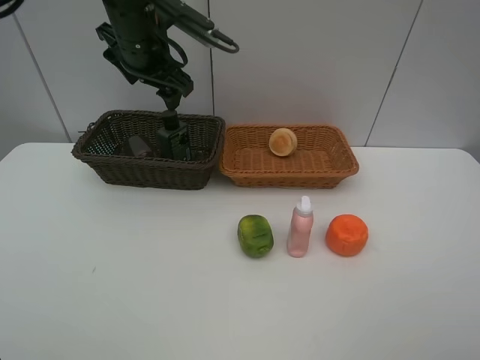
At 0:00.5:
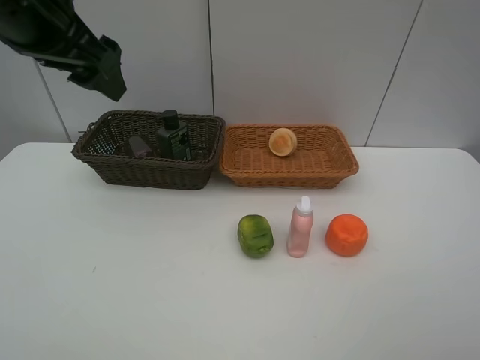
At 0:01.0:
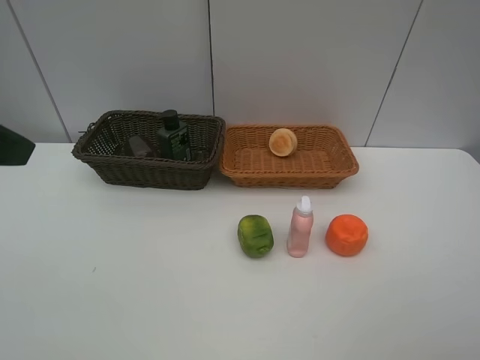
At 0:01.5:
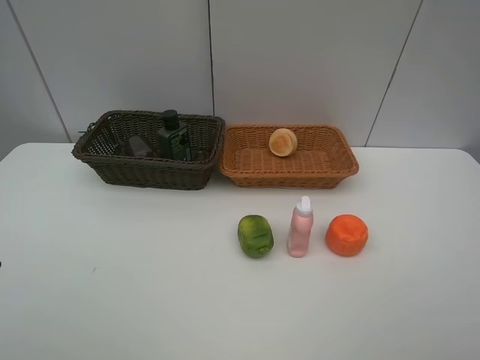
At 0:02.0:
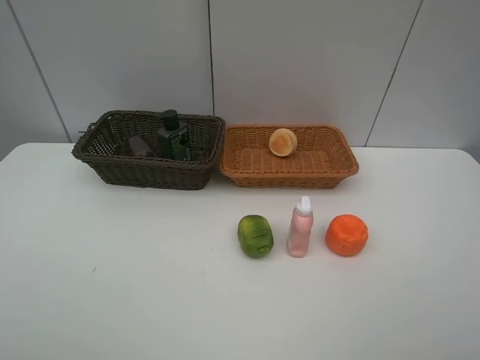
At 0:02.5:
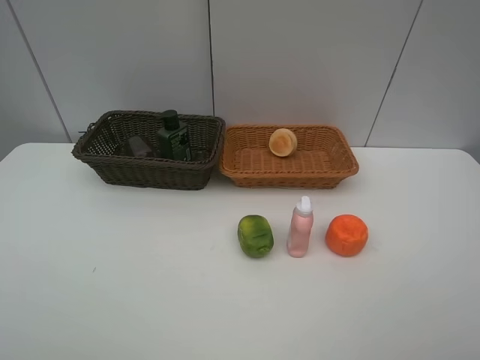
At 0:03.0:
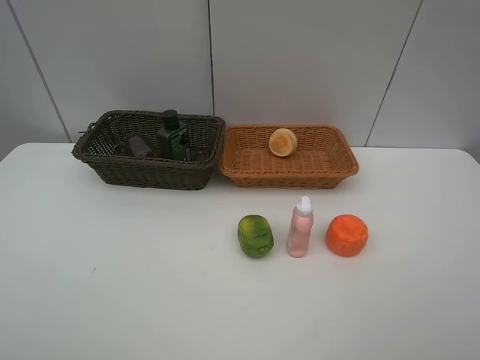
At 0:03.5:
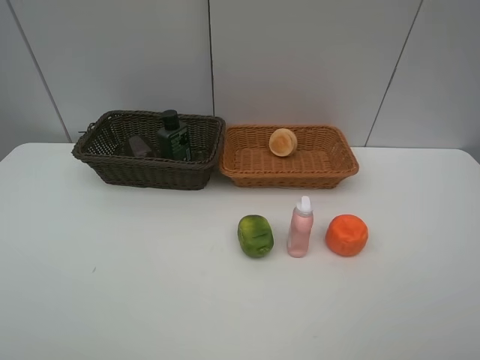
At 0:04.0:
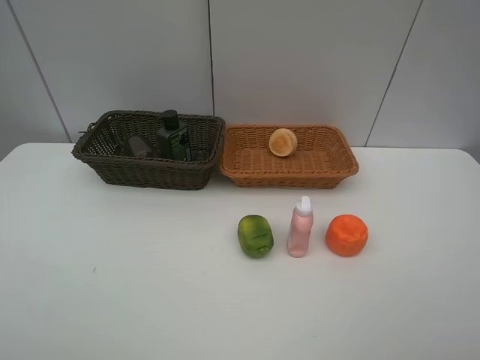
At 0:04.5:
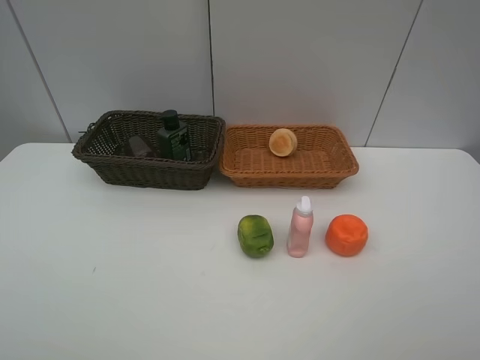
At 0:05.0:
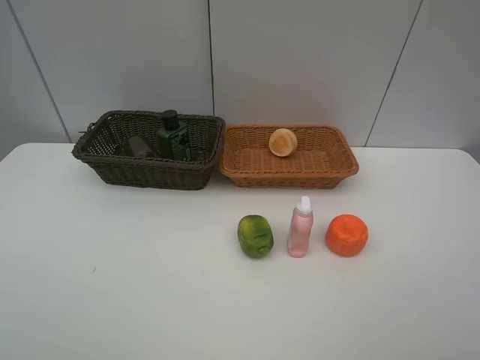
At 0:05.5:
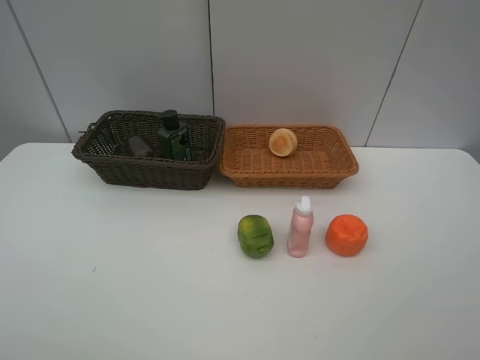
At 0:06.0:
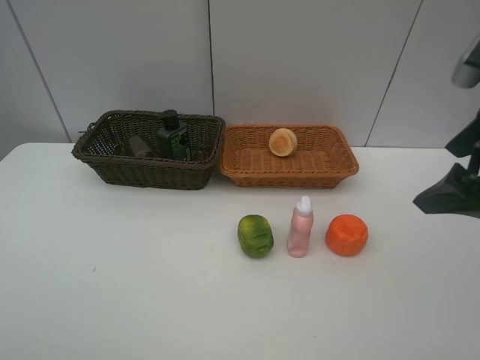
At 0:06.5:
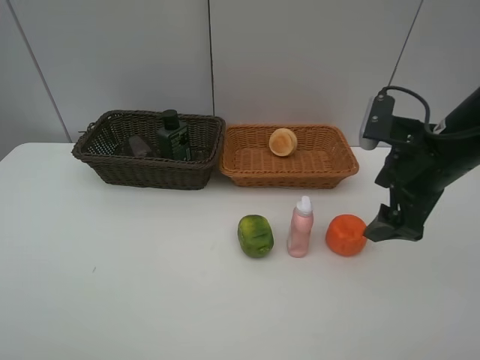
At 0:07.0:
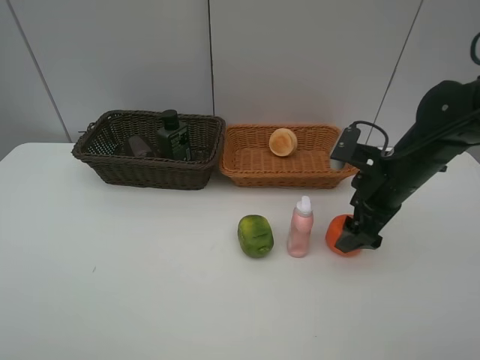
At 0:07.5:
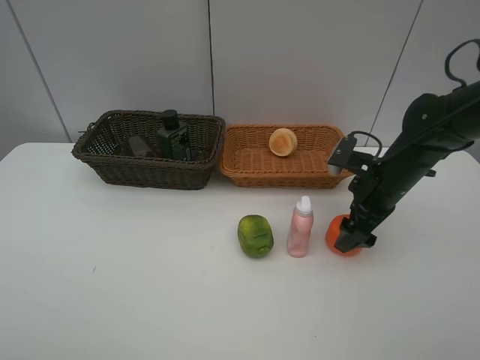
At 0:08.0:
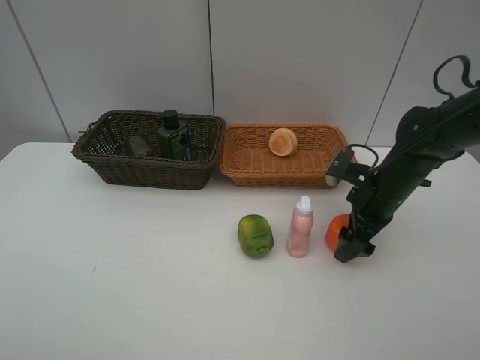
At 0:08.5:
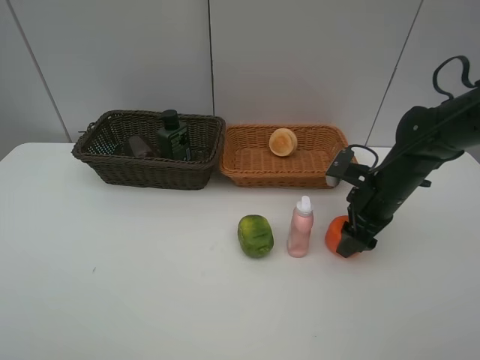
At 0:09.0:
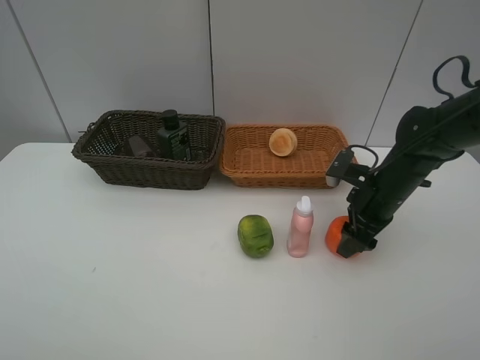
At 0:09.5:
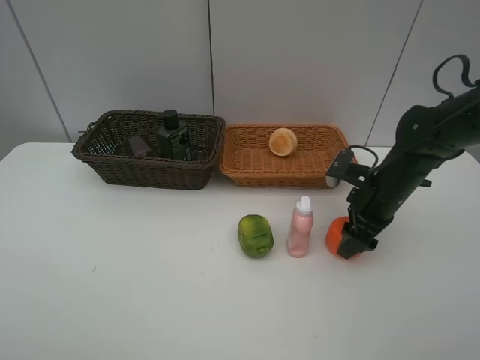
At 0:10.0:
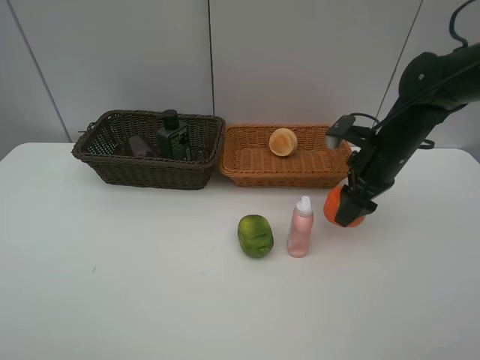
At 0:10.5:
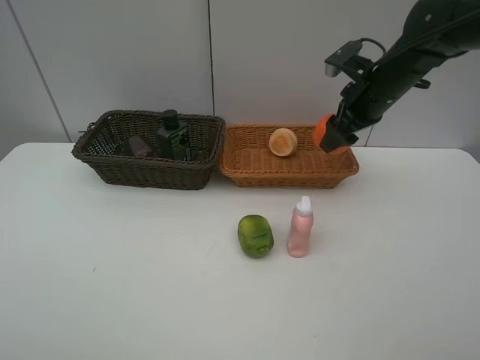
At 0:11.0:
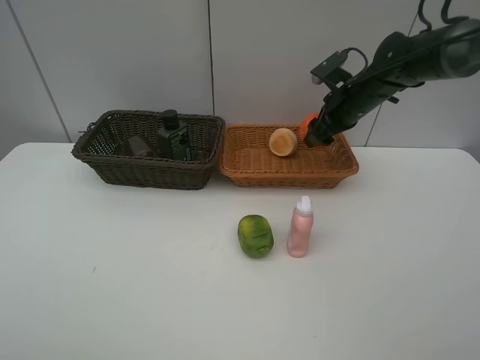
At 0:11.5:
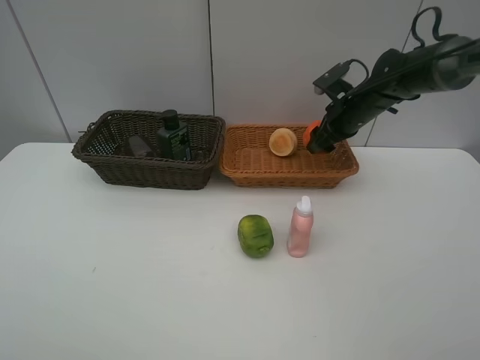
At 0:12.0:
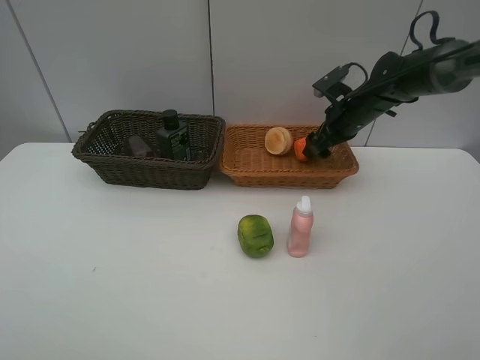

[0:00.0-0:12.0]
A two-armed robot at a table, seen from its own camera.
Task of the whole recording: place multiple objects separately in different baskets.
0:00.0 to 0:02.0: The left gripper heads backward and to the left, covering some 40 cm.
0:04.0 to 0:06.0: The right gripper goes some 20 cm forward.
0:06.0 to 0:08.0: The right gripper is displaced downward and forward by some 20 cm.
0:08.0 to 0:10.0: The right gripper moves upward, some 5 cm, and closes up.
0:10.0 to 0:12.0: The right gripper shifts some 10 cm forward, and opens its fingers.

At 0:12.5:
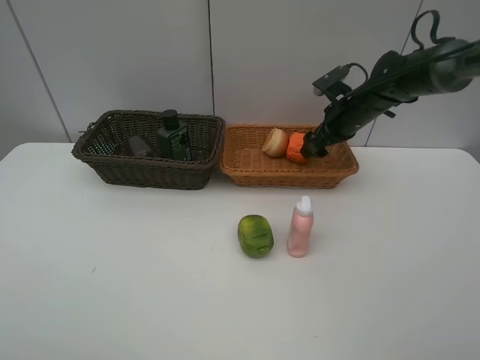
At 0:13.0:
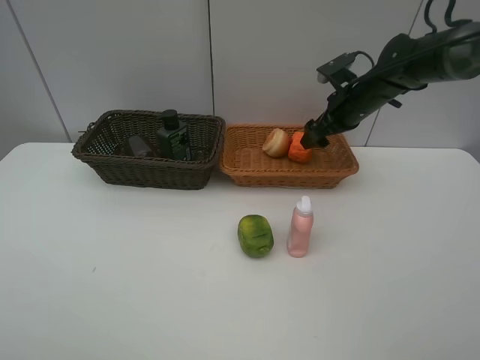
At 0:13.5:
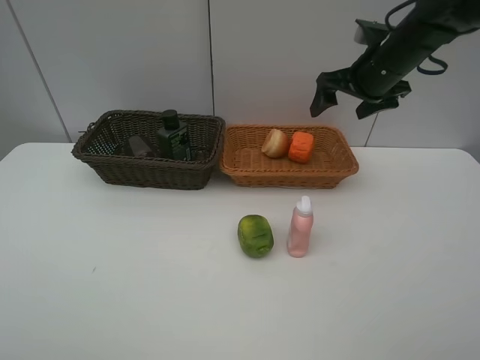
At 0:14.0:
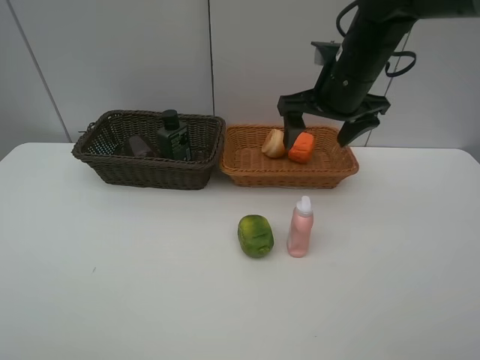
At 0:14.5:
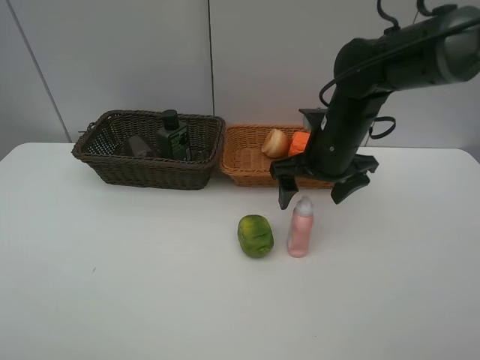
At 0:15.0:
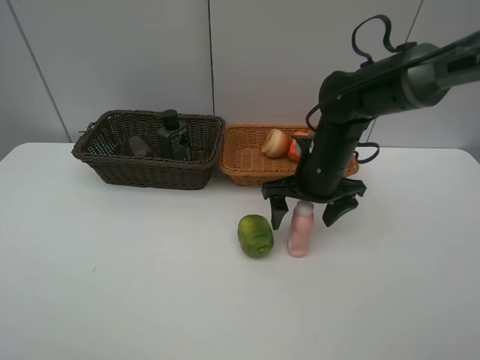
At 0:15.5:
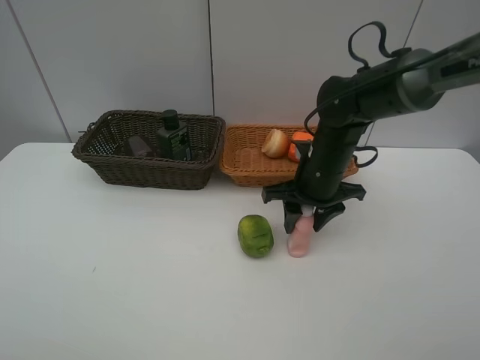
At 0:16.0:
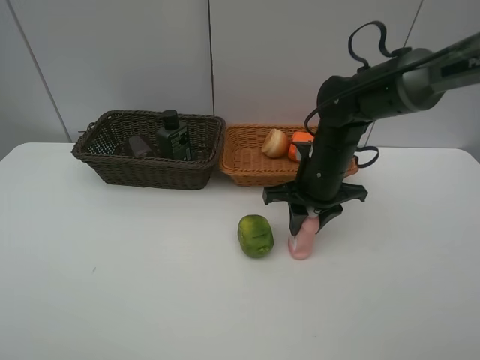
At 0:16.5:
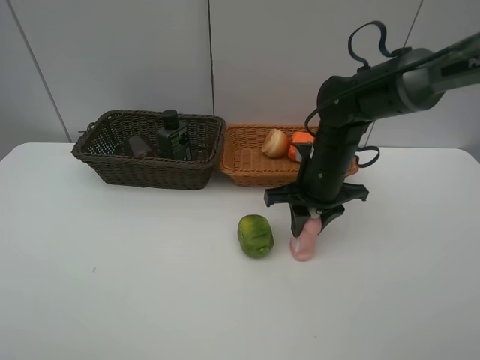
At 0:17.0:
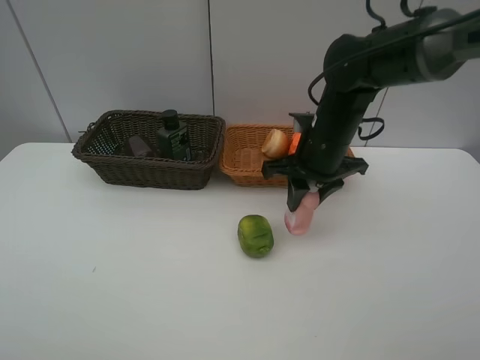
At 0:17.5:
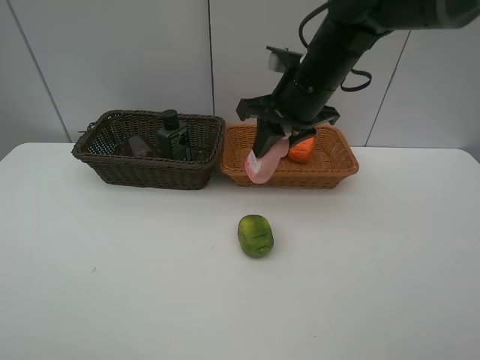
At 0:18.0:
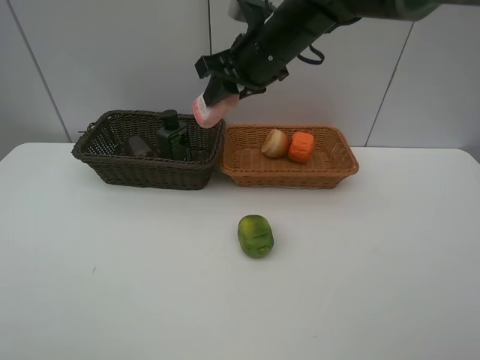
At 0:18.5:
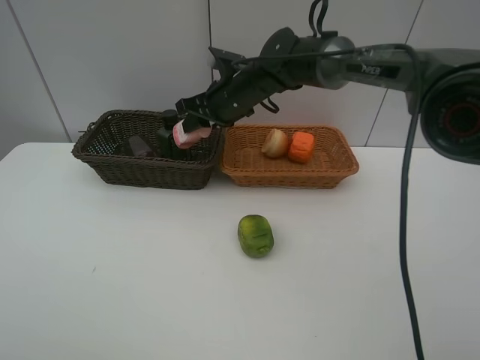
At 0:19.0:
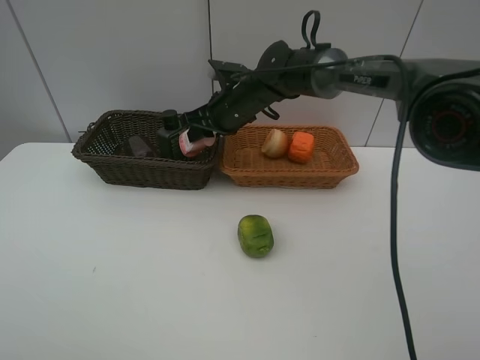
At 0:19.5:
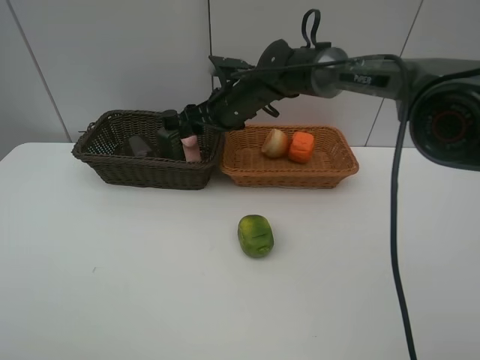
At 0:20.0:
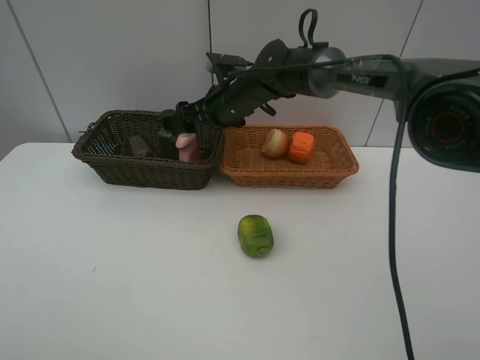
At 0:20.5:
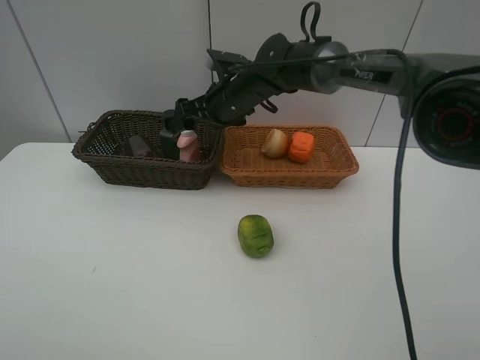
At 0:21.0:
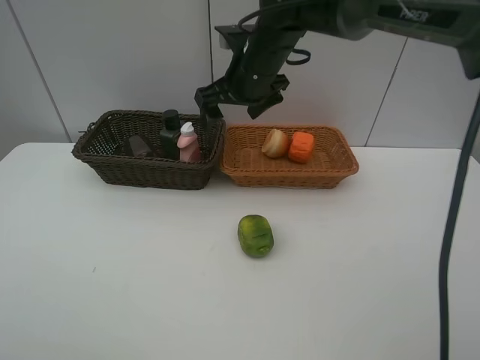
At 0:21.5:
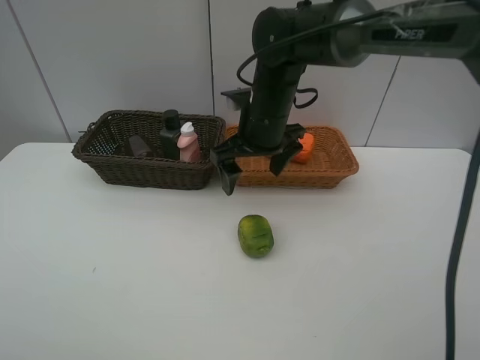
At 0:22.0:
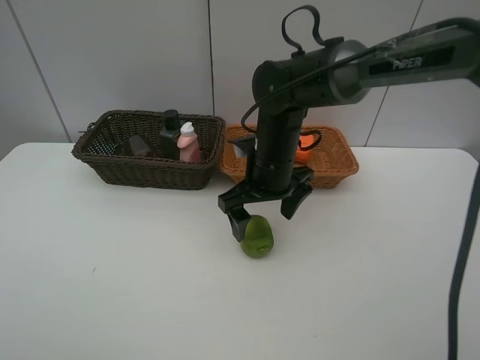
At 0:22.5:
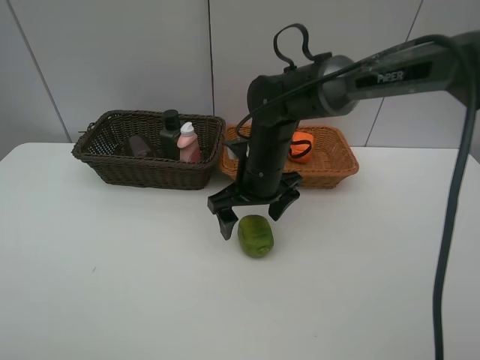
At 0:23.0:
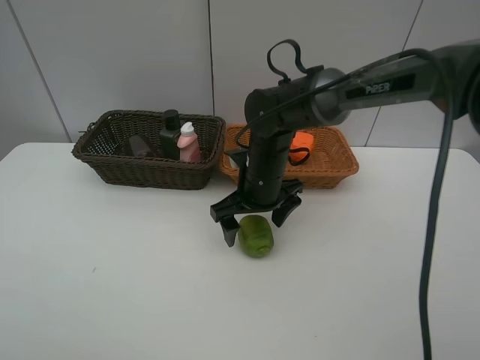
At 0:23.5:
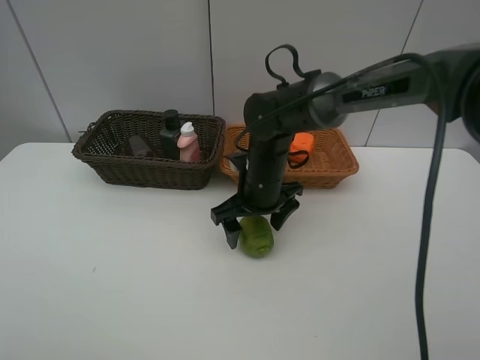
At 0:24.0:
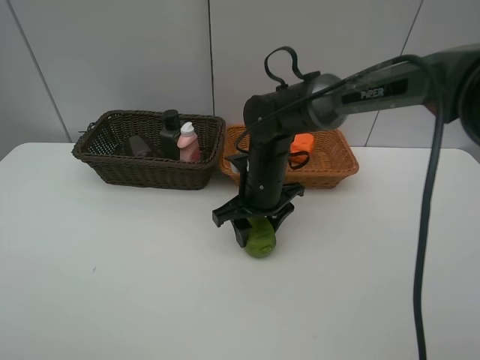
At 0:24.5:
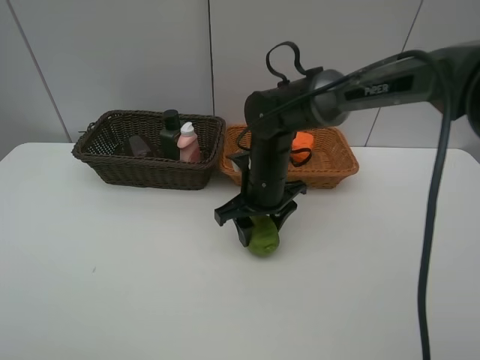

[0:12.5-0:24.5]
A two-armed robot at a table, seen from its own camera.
Task of the whole recording: place multiple objects separately in different baskets.
0:12.5 to 0:14.5: The right gripper moves backward and to the left, some 15 cm.
0:14.5 to 0:16.5: The right gripper closes its fingers.
0:16.5 to 0:18.5: The right gripper heads to the left and forward, covering roughly 15 cm.
0:18.5 to 0:20.5: The right gripper opens up.
0:20.5 to 0:22.5: The right gripper heads backward and downward, covering approximately 10 cm.
0:22.5 to 0:24.5: The right gripper closes.

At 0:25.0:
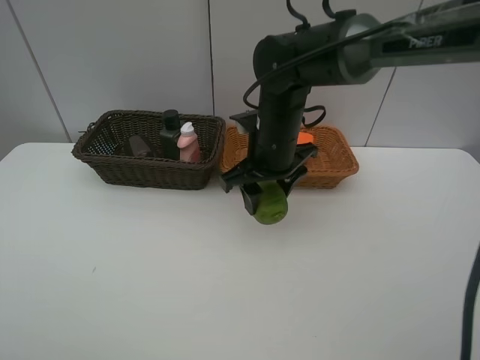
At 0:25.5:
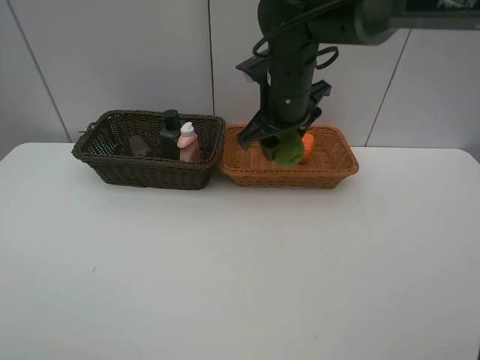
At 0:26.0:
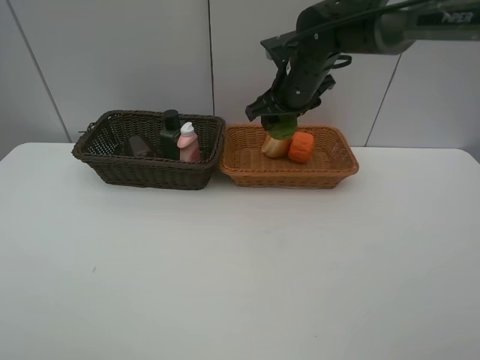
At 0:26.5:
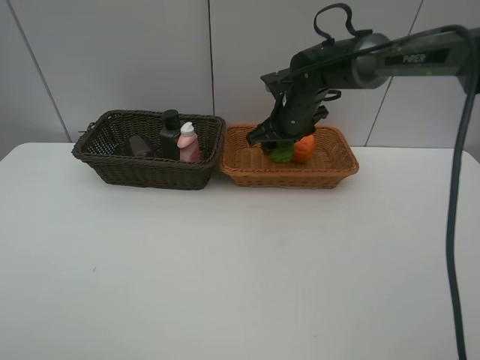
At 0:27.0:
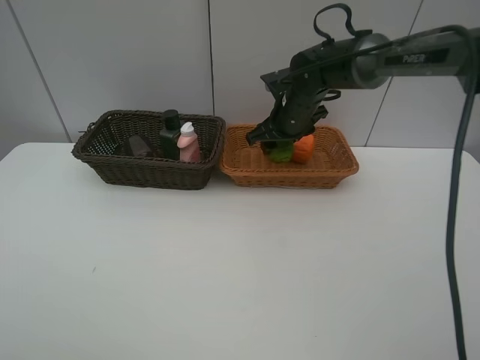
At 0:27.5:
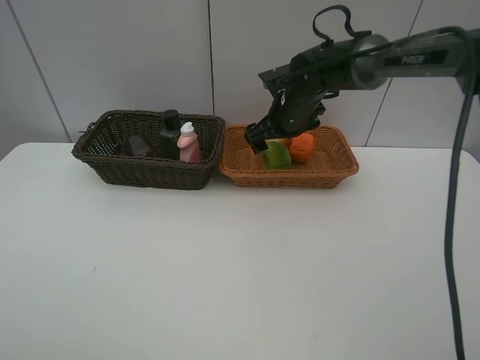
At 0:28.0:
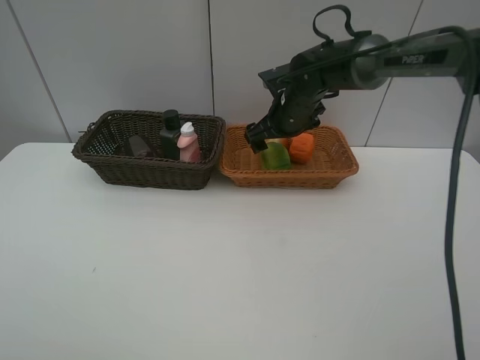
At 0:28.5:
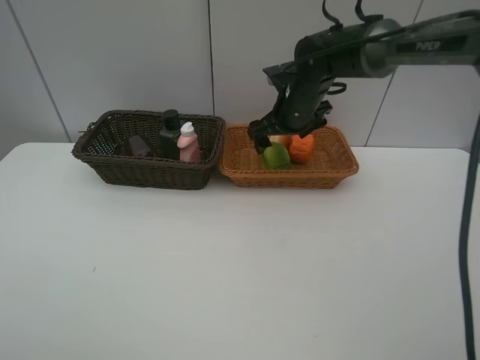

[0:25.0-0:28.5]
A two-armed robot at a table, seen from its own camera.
Task of the whole recording: place multiple objects separately in different baskets.
0:25.0 to 0:27.0: The right gripper travels forward by some 10 cm.
0:27.0 to 0:28.5: The right gripper opens.
